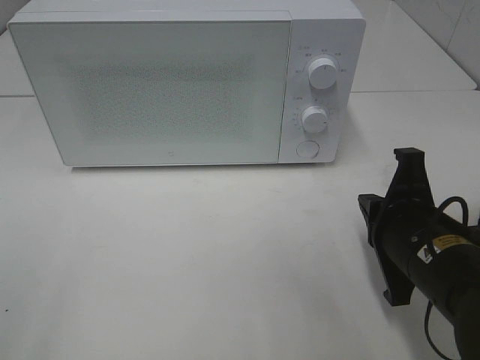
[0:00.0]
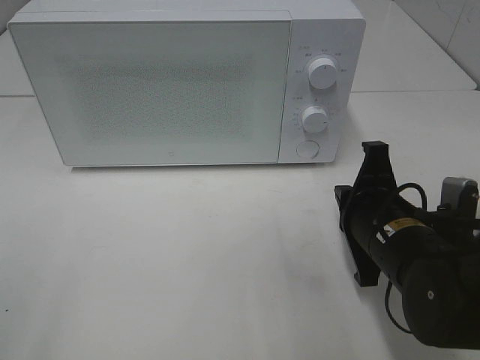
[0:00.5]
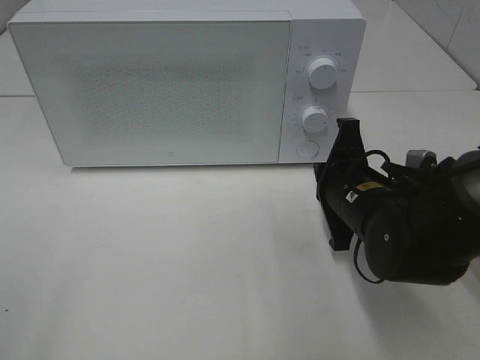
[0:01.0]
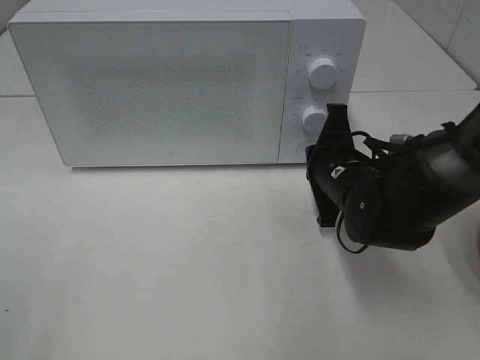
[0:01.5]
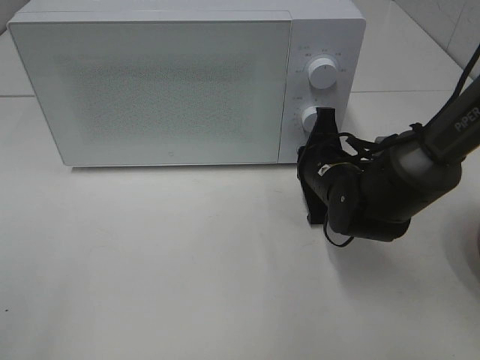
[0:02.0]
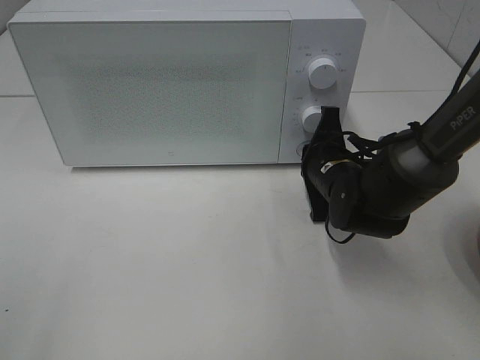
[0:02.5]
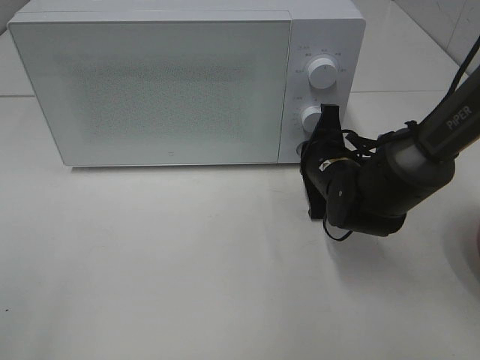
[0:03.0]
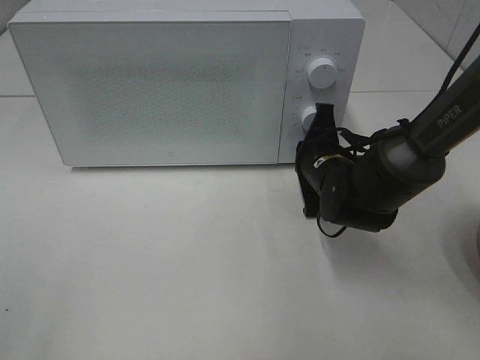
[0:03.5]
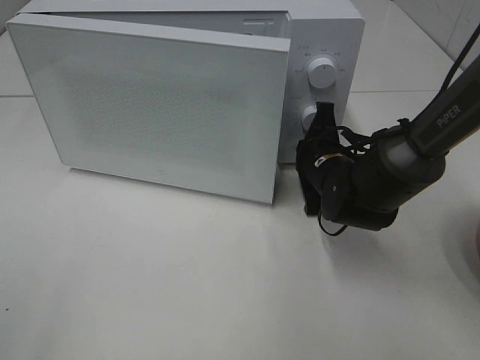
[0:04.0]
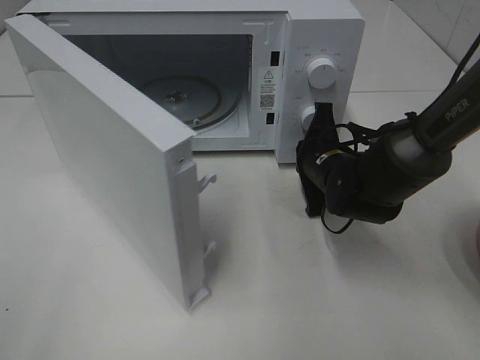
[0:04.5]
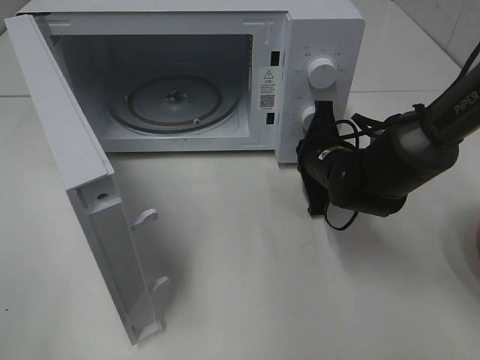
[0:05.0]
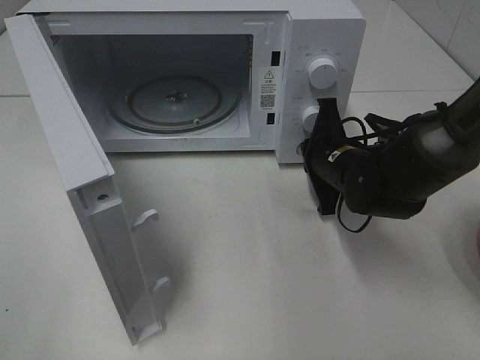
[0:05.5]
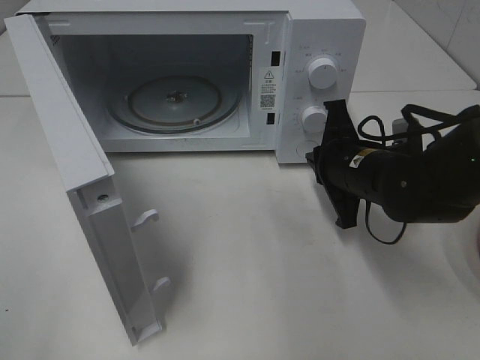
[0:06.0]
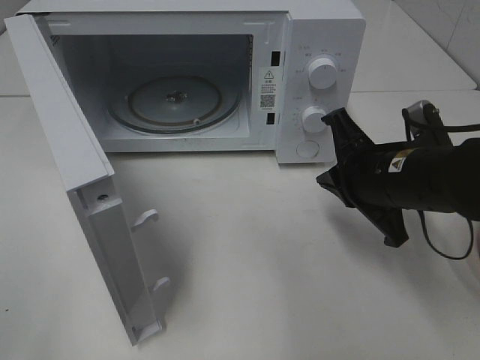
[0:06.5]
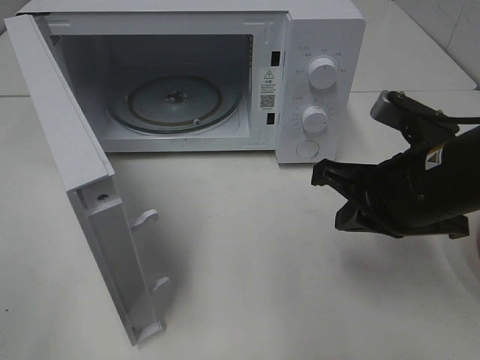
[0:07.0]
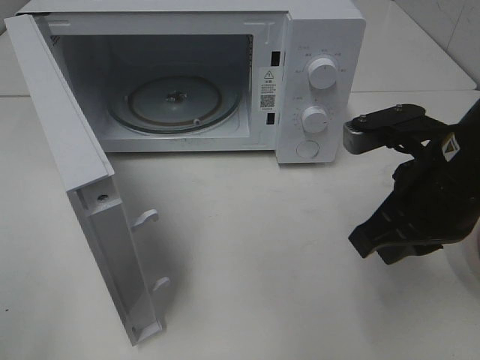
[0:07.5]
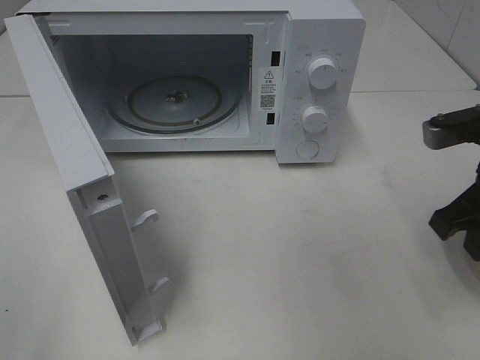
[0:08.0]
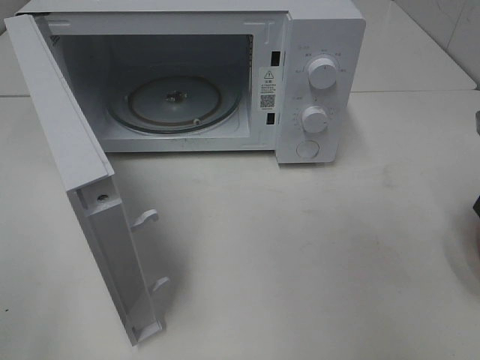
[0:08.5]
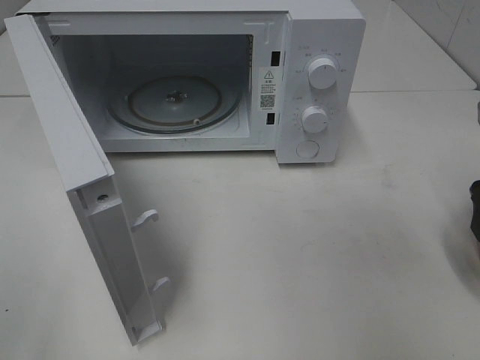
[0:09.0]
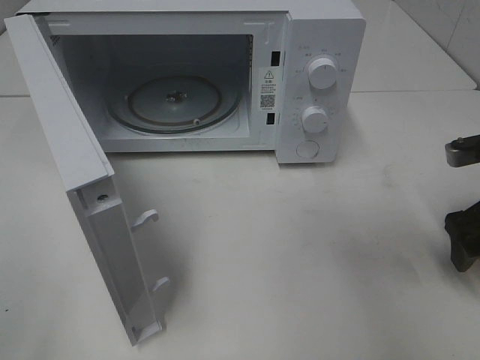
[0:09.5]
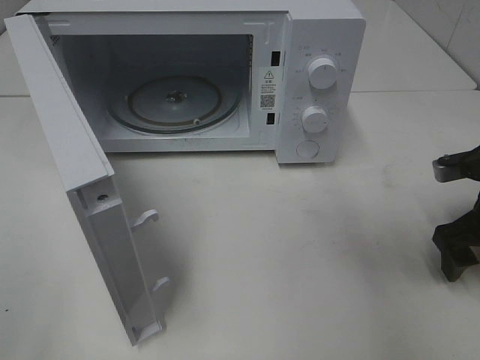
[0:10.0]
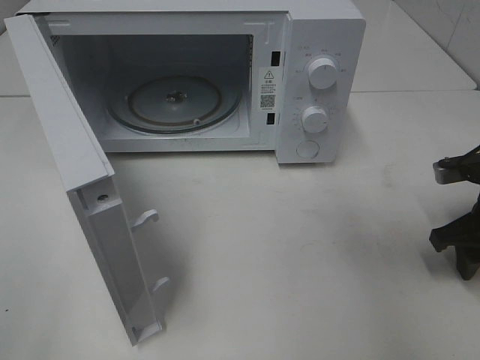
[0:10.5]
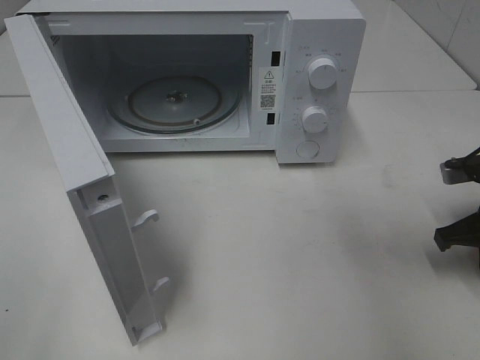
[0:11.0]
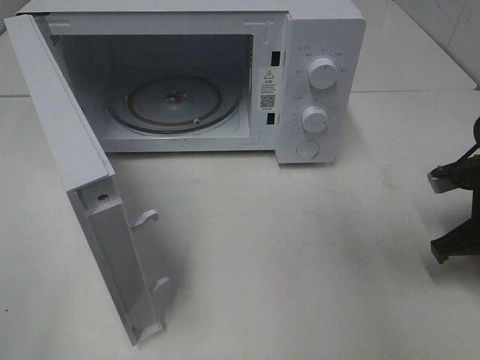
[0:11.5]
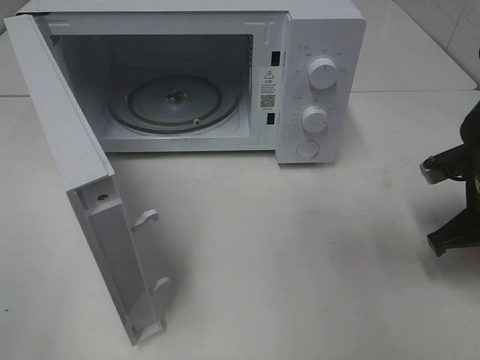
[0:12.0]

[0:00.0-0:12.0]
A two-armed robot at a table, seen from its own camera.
Task of the whole recording: Heat the burger.
Step, 0:00.0 to 0:05.5: Right hand: press the switch.
Step, 0:06.0 to 0:11.0: Right hand: grab the plate with the hamburger.
0:00.0 to 0:02.0: The right gripper travels forward by some 15 cm.
0:02.0 to 0:04.0: The grippers stay close to where they were, moving slightly.
0:04.0 to 0:06.0: The right gripper heads backward, covering approximately 5 cm.
0:06.0 to 0:08.0: The right gripper travels to the right, upward and backward by some 15 cm.
0:08.0 to 0:10.0: The right gripper travels downward and to the right by roughly 10 cm, and opens up.
0:10.0 to 0:12.0: The right gripper closes its fingers.

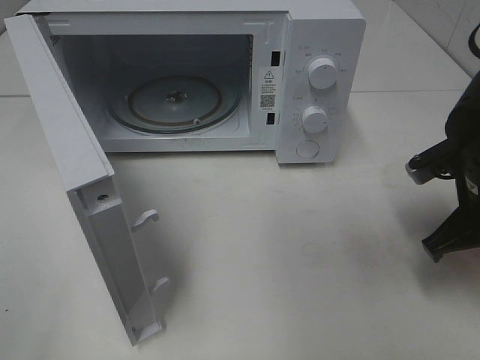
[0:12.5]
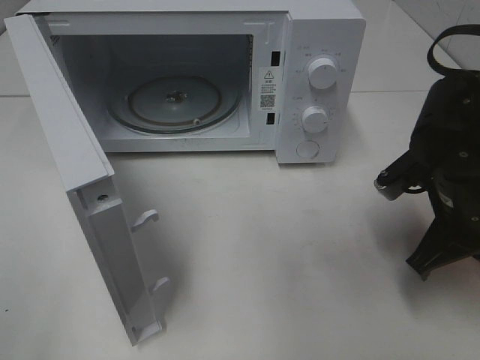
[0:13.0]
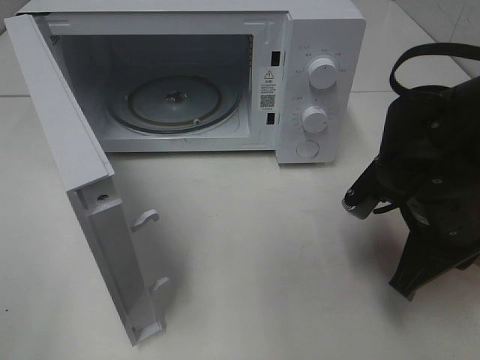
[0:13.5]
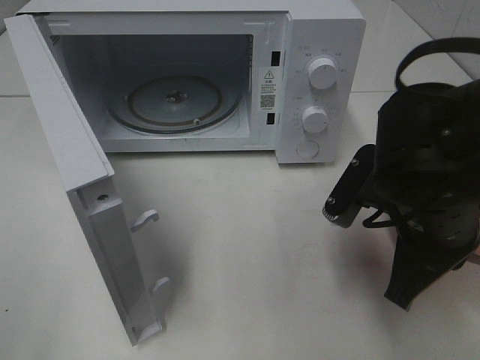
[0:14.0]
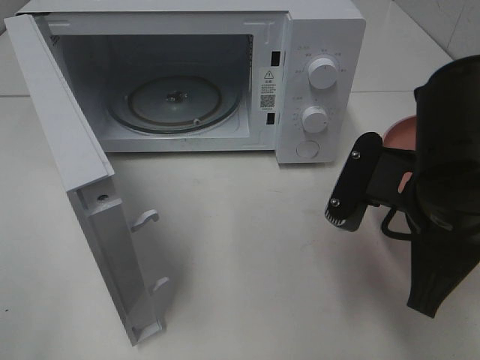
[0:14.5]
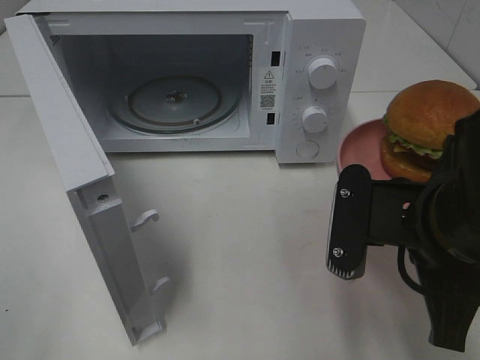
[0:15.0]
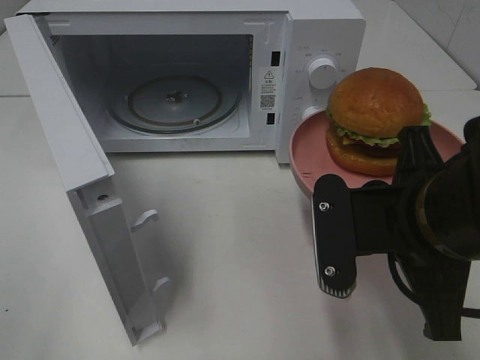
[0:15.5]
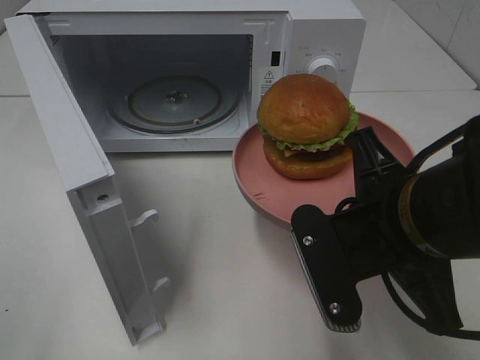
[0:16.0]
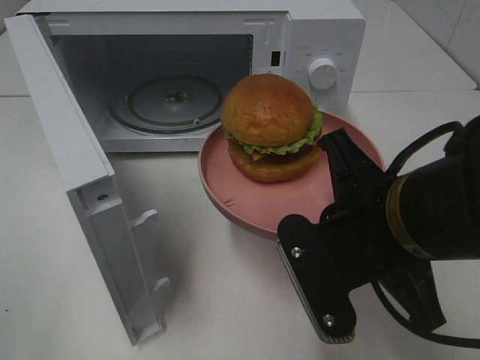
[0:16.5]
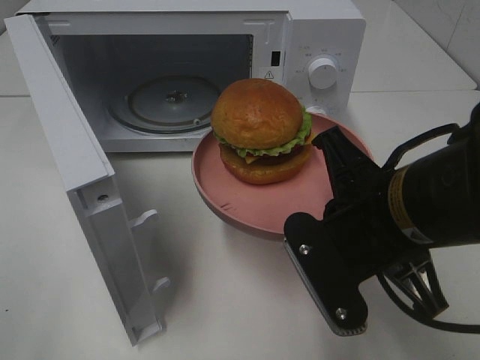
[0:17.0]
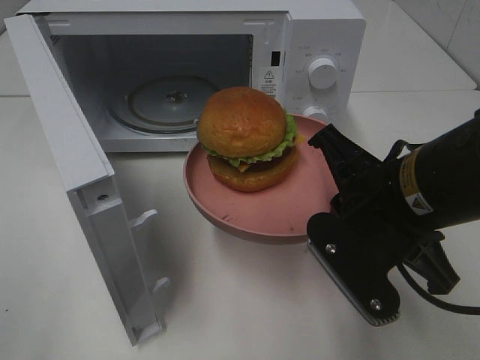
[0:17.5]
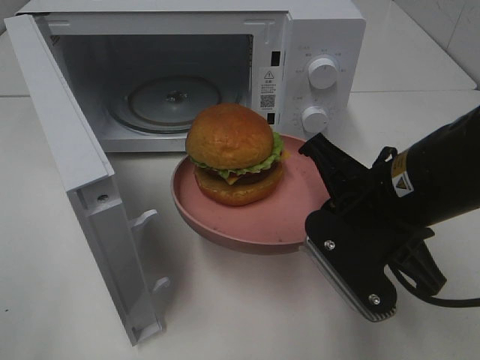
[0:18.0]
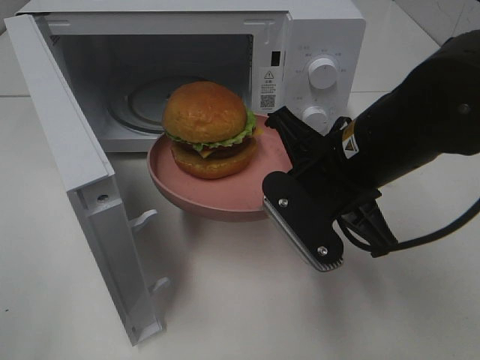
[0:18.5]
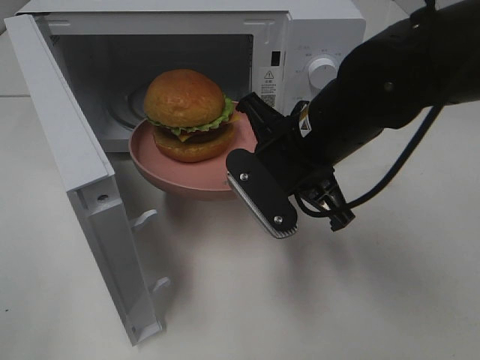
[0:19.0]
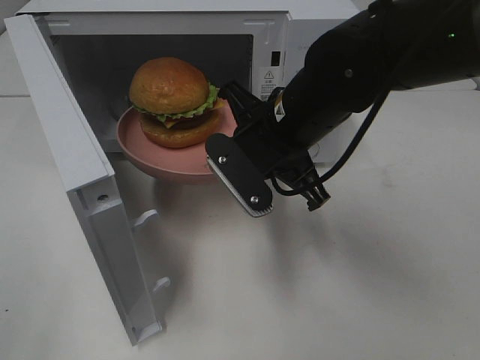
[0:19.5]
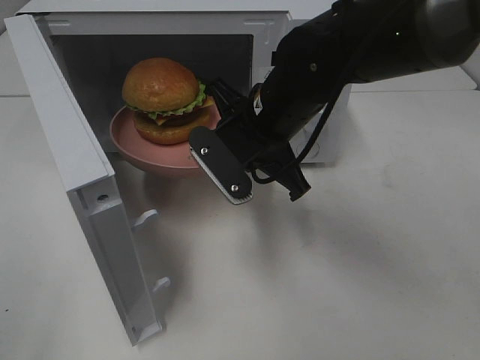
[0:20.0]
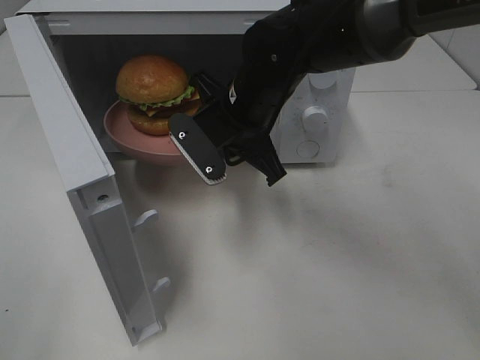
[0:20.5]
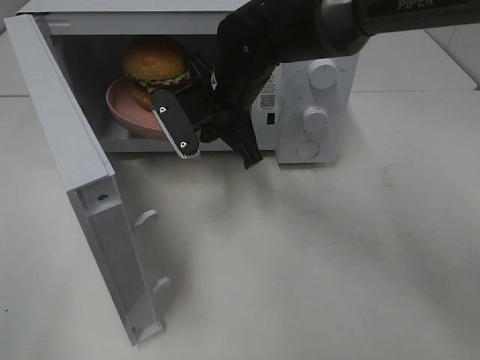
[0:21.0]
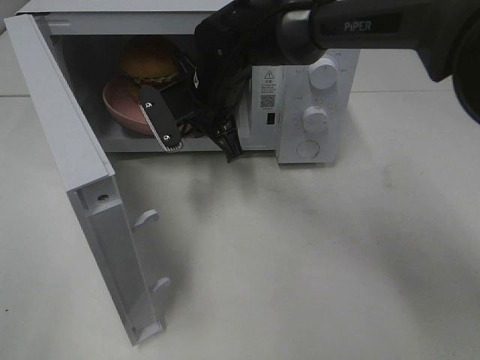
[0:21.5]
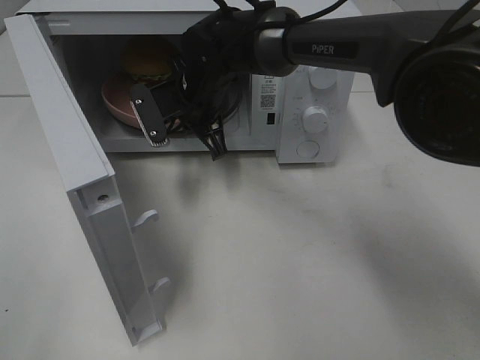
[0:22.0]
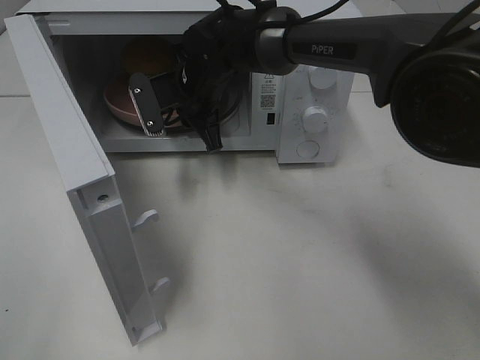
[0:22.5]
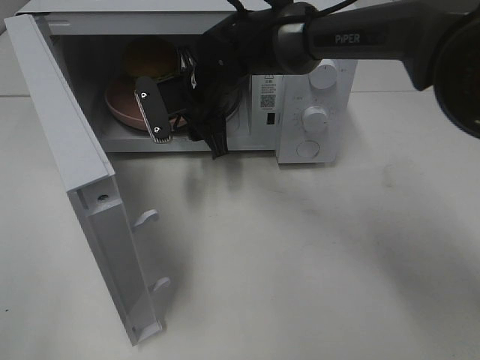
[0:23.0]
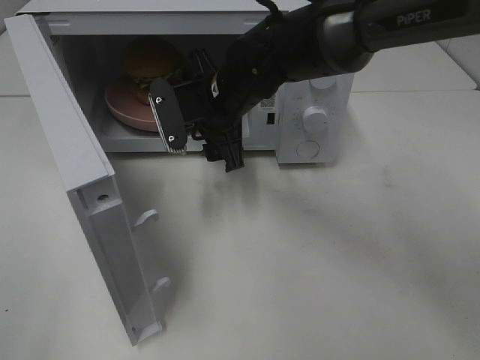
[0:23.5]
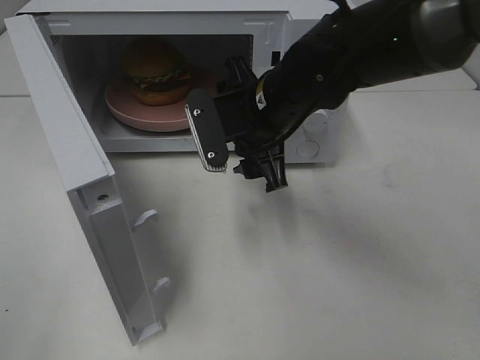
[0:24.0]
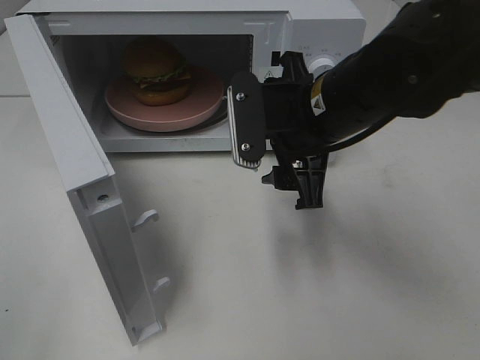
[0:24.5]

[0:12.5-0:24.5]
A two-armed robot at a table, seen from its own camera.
Task of the whole recording: Heat the burger.
Step, 0:12.5 to 0:23.0: Right hand: place the plate in the microwave.
0:12.5 to 0:14.5: The right gripper goes approximately 15 cm to the left, backward and upward.
0:16.5 to 0:18.5: The right gripper is displaced forward by roughly 10 cm.
0:18.5 to 0:20.5: The right gripper goes about 15 cm forward and to the left.
0:20.5 to 0:22.5: The right gripper shifts about 10 cm forward and to the left.
0:22.5 to 0:24.5: The right gripper is displaced backward and to the right by roughly 20 cm, and opens its fingers.

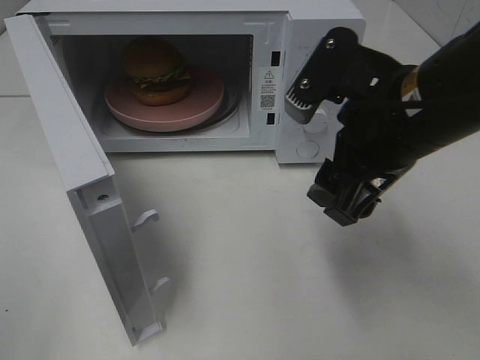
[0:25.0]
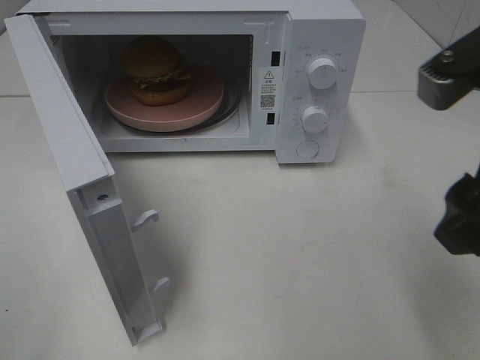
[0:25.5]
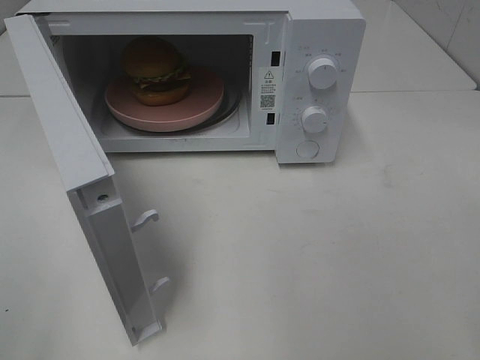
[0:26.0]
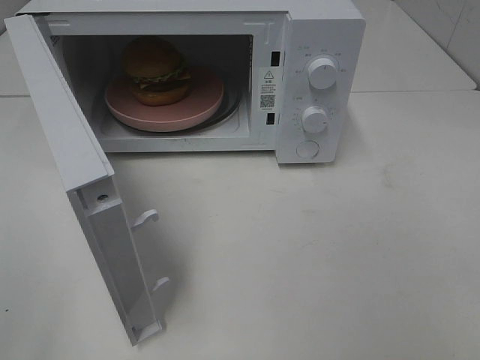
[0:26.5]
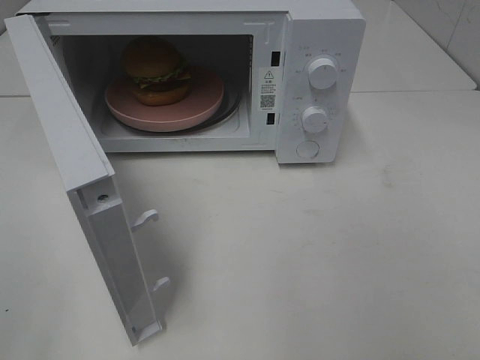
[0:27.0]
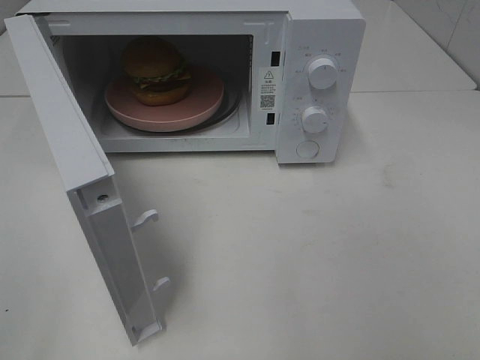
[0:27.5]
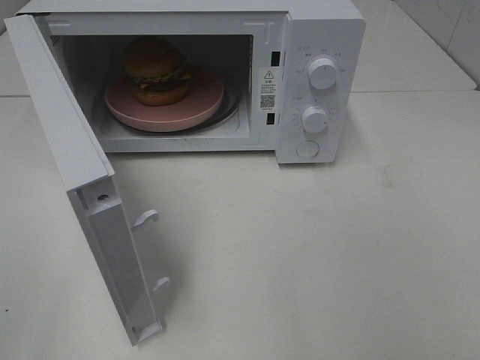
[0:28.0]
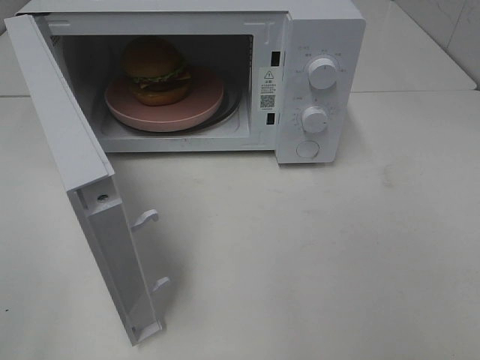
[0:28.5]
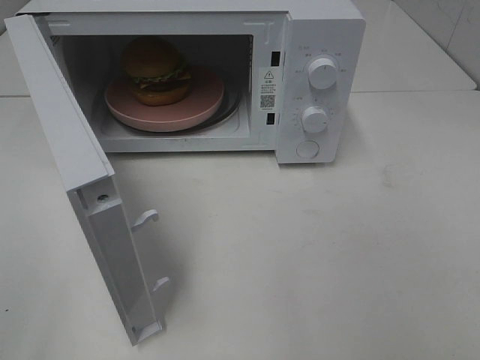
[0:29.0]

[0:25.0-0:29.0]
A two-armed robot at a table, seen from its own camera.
Task of the whole recording: Heat the burger.
0:25.0 to 0:27.0: The right gripper moves backward and to the right, some 25 cm.
